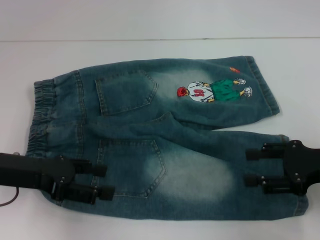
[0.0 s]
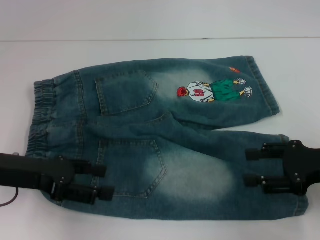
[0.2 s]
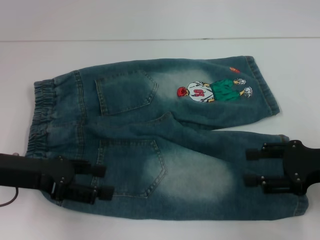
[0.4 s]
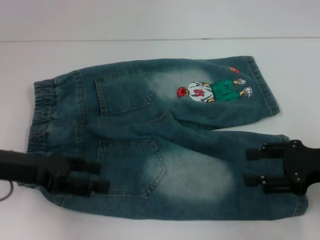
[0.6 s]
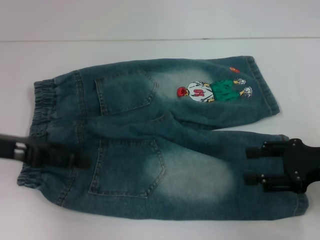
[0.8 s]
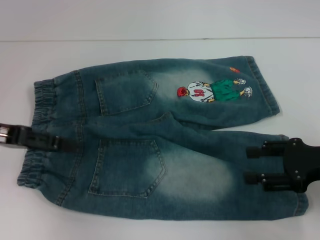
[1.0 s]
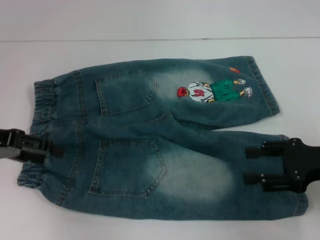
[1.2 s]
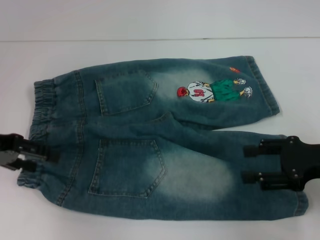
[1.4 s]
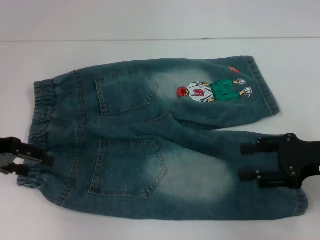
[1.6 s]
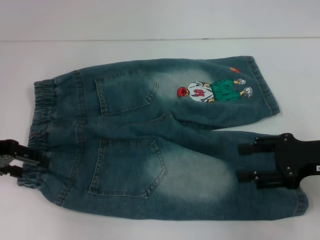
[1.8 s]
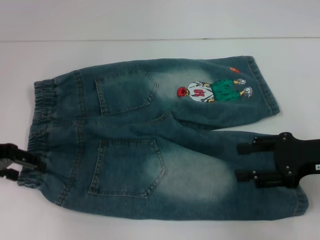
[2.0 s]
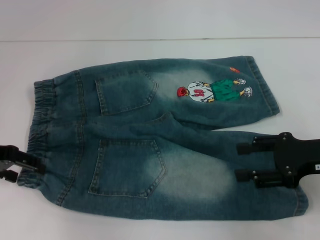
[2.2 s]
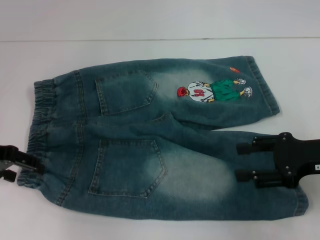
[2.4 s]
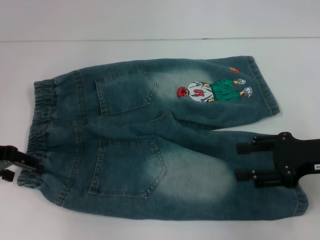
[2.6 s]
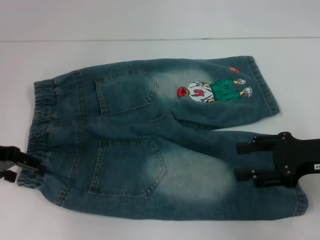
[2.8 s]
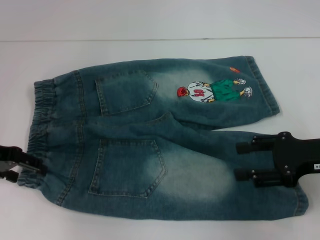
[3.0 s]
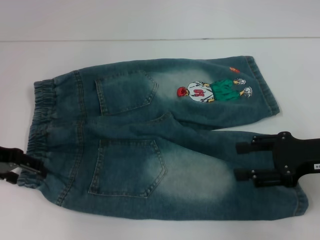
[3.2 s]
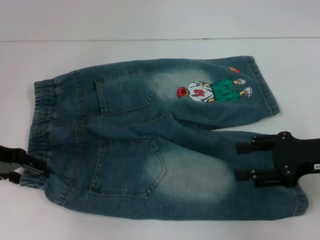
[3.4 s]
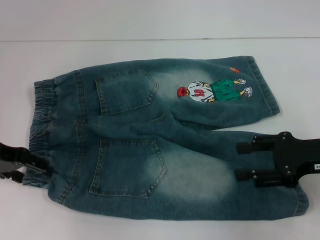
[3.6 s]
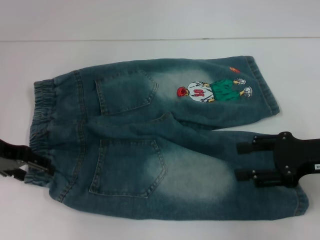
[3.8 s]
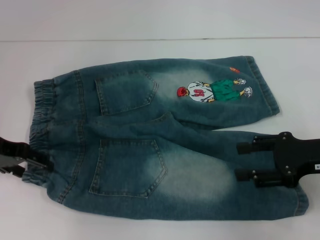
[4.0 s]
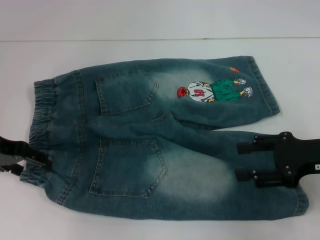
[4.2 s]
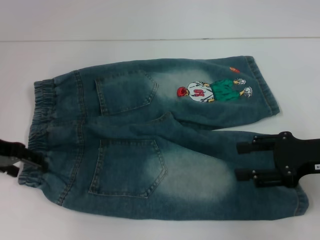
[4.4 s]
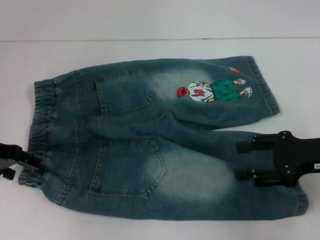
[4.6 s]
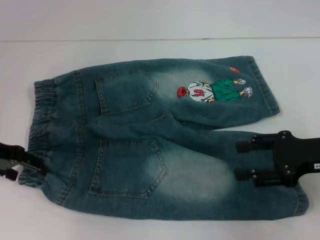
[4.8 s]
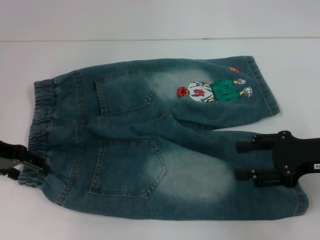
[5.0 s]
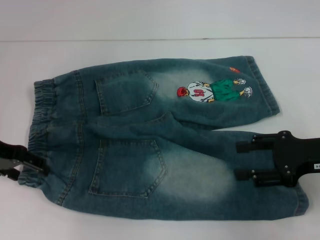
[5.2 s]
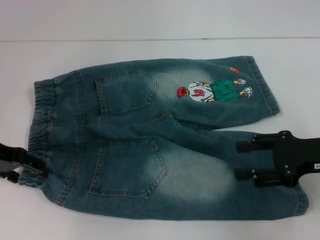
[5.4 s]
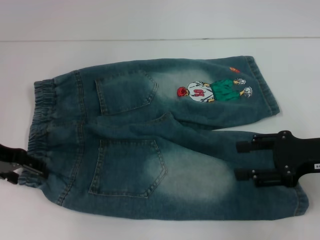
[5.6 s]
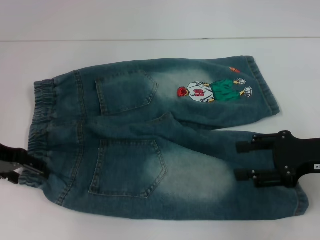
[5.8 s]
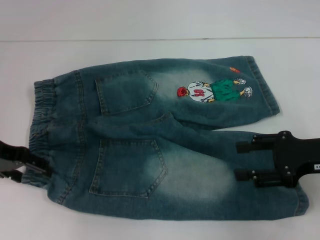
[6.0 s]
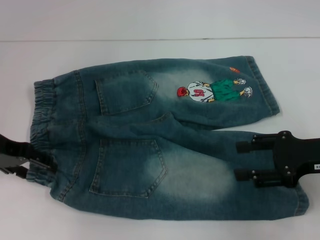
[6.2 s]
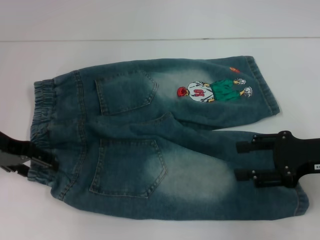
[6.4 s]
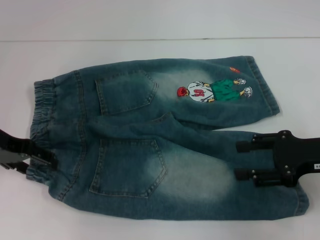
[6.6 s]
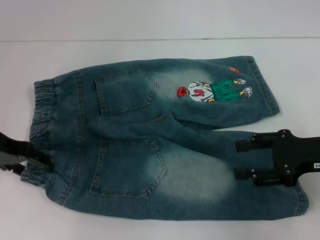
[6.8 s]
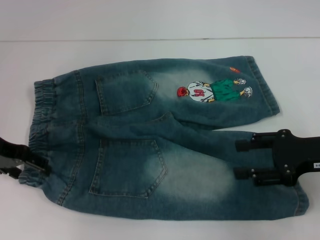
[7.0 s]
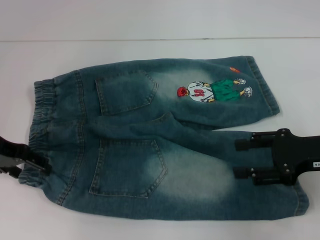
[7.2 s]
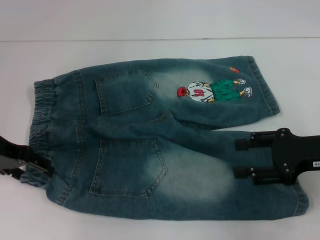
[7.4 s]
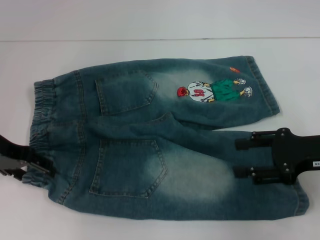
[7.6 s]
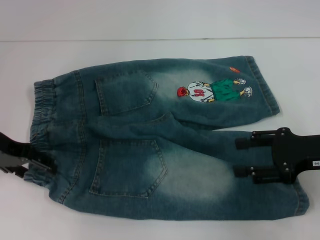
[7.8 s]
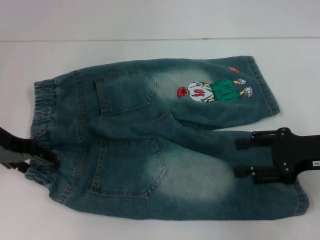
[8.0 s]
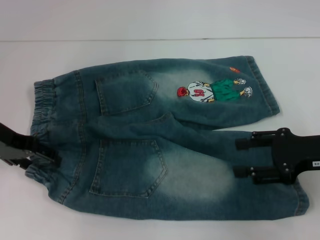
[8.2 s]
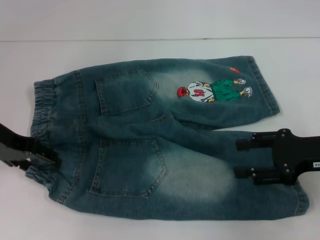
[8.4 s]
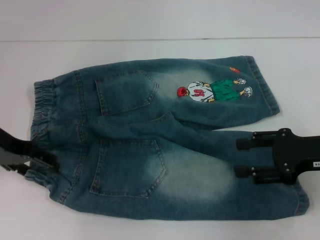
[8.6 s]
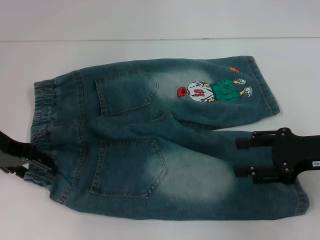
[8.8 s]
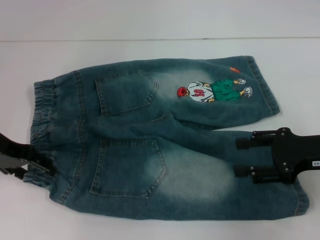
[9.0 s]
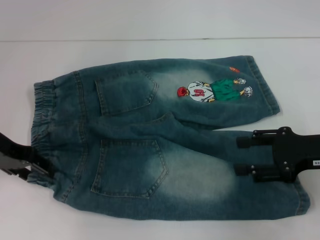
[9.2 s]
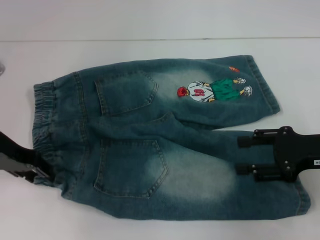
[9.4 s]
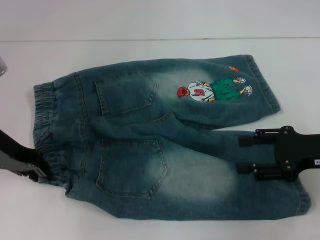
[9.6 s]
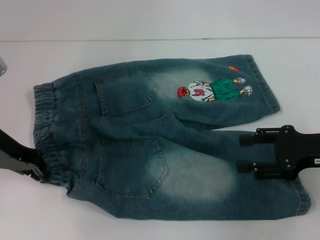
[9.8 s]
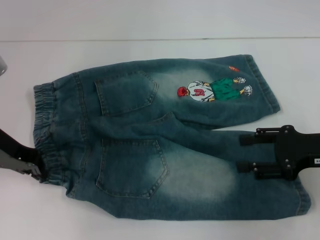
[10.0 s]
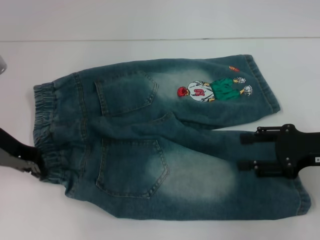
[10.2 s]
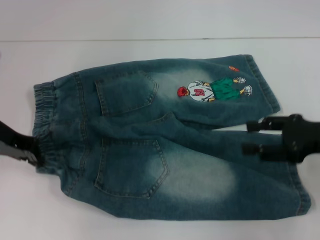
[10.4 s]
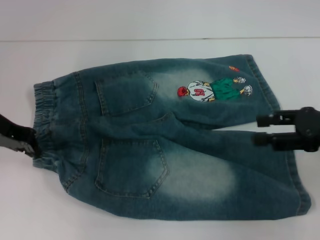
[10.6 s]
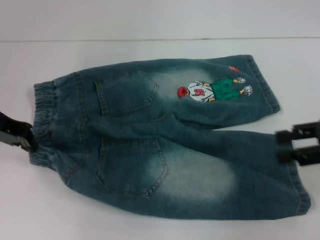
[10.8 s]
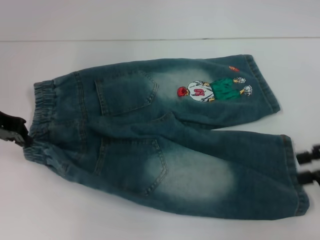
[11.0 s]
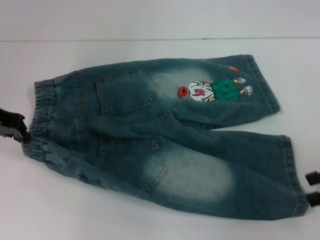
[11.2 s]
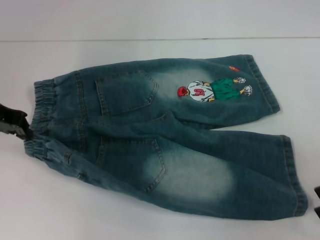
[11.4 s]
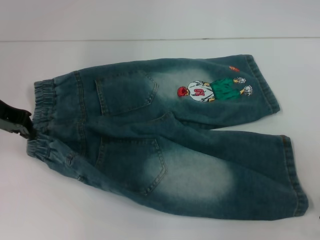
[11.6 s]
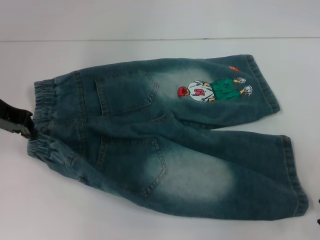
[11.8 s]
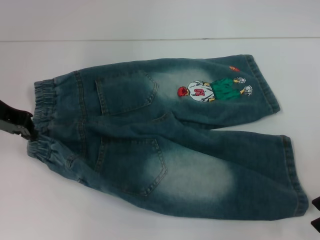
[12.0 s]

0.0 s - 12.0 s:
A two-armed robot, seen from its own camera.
Step, 0.0 s - 10.2 s: Hold the lower left waistband with your left hand.
0.0 s - 1.6 s: The left gripper goes some 5 cm to the left.
1.6 s - 4.4 s: The grippers move only a little.
4.4 s - 6.0 s: Both grippers stay about where they are.
6.0 s - 7.6 s: Both grippers stay put.
7.6 s - 9.0 s: Both grippers stay put.
9.0 s - 10.4 s: The left gripper closes.

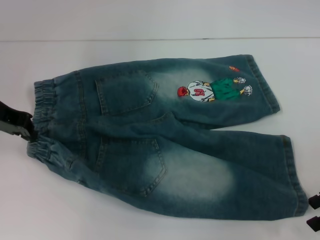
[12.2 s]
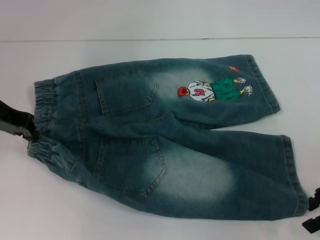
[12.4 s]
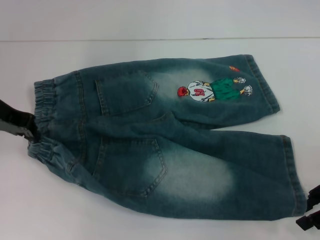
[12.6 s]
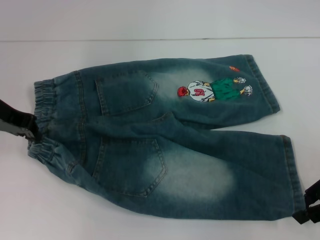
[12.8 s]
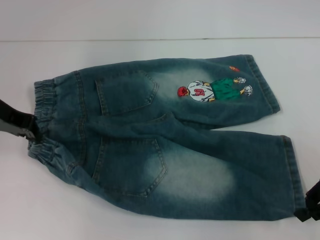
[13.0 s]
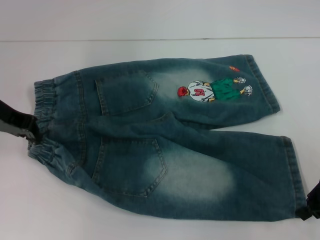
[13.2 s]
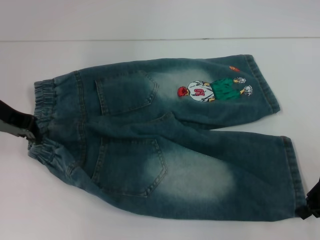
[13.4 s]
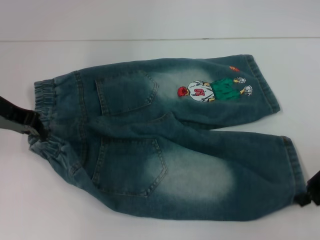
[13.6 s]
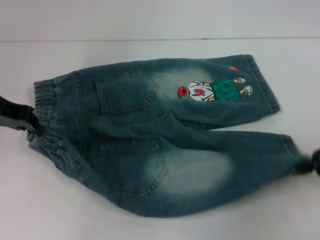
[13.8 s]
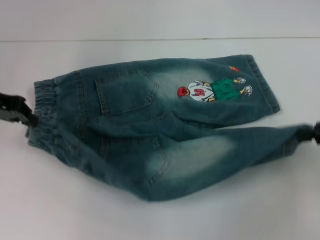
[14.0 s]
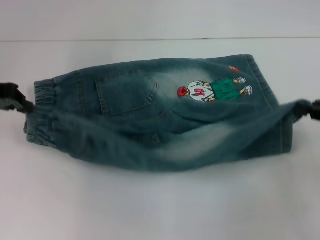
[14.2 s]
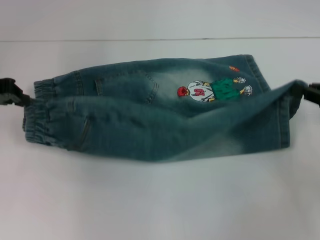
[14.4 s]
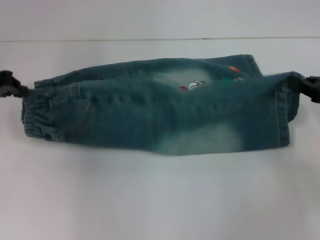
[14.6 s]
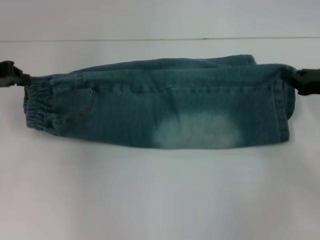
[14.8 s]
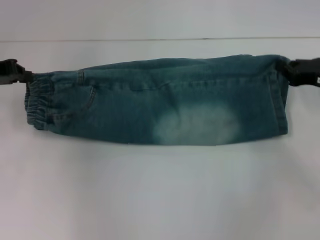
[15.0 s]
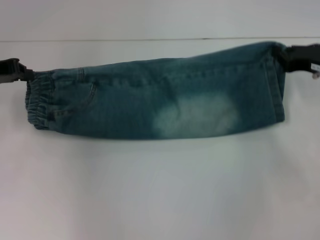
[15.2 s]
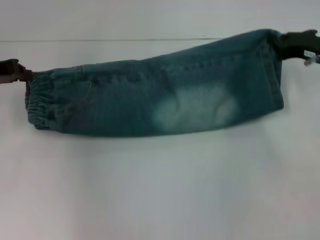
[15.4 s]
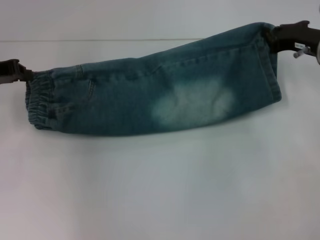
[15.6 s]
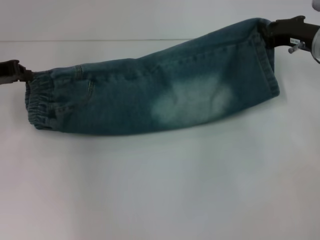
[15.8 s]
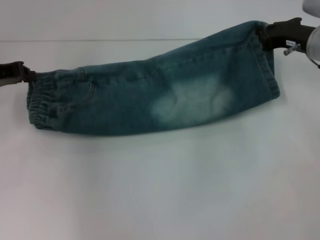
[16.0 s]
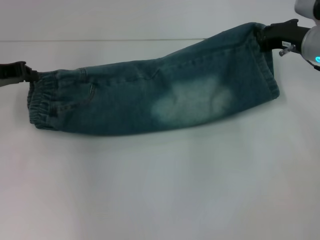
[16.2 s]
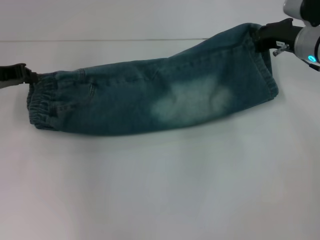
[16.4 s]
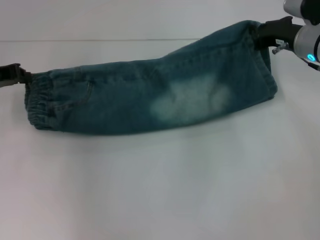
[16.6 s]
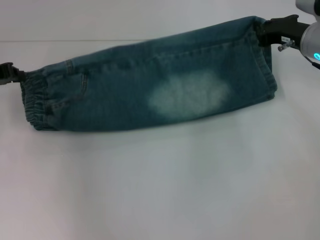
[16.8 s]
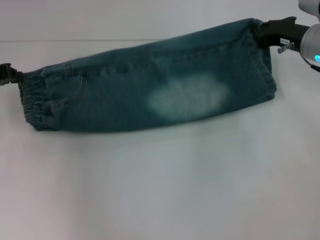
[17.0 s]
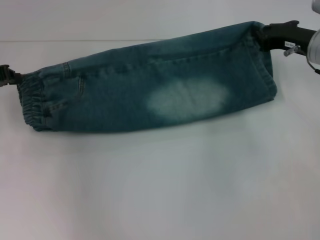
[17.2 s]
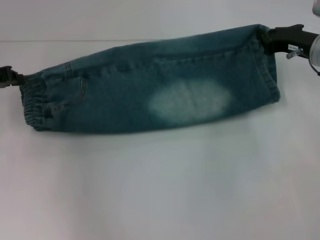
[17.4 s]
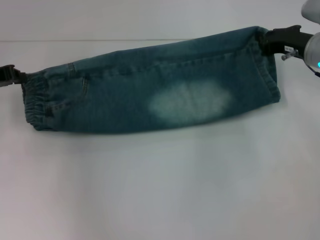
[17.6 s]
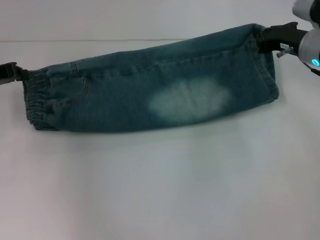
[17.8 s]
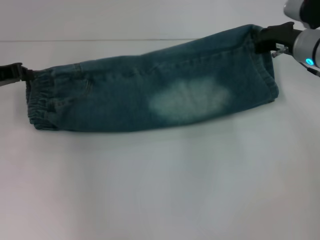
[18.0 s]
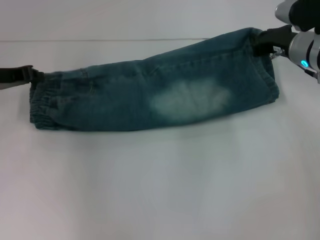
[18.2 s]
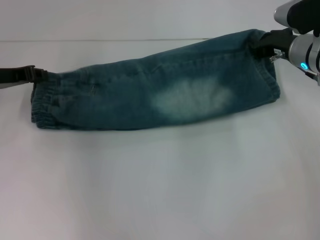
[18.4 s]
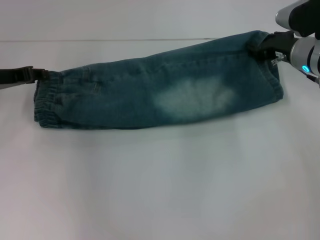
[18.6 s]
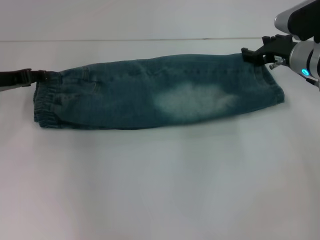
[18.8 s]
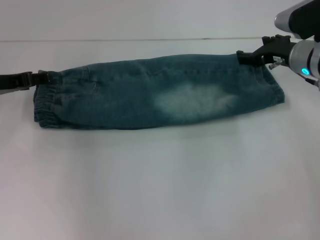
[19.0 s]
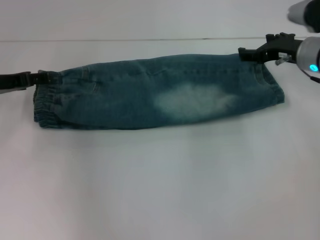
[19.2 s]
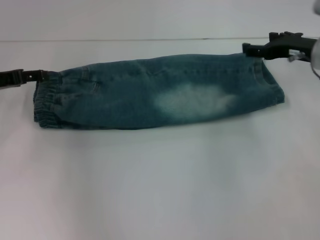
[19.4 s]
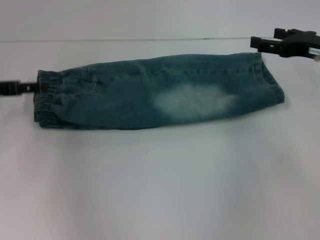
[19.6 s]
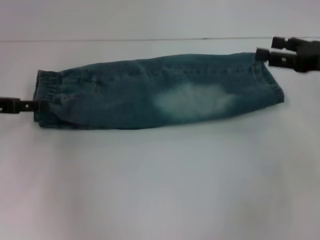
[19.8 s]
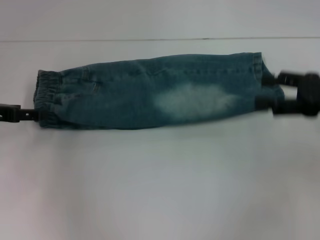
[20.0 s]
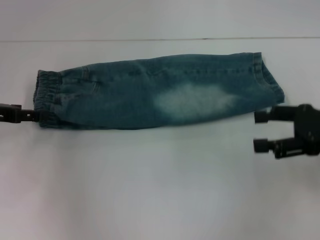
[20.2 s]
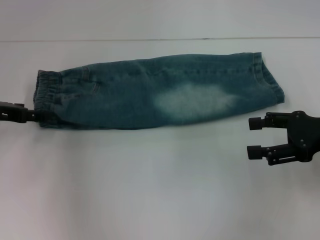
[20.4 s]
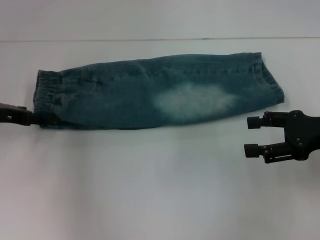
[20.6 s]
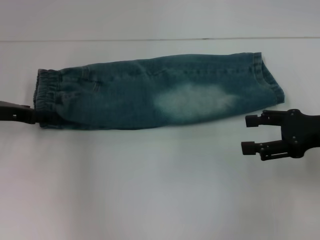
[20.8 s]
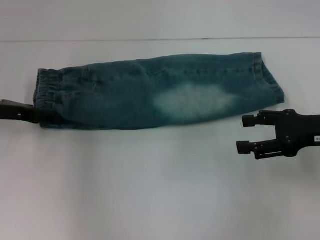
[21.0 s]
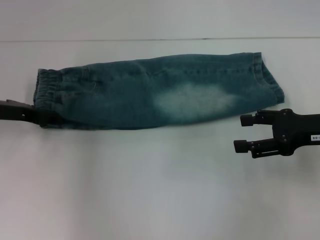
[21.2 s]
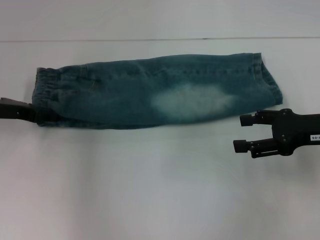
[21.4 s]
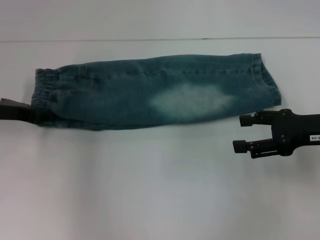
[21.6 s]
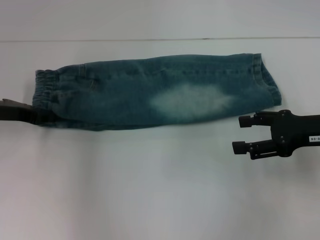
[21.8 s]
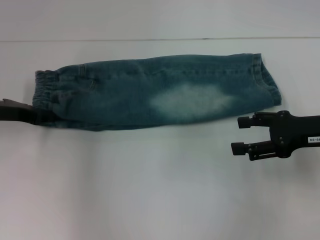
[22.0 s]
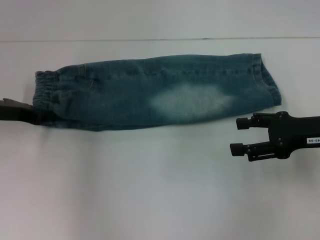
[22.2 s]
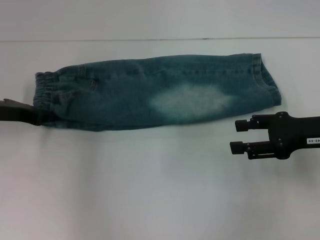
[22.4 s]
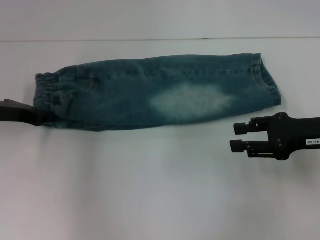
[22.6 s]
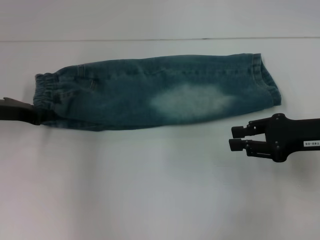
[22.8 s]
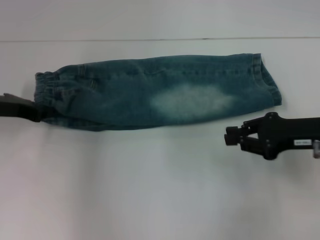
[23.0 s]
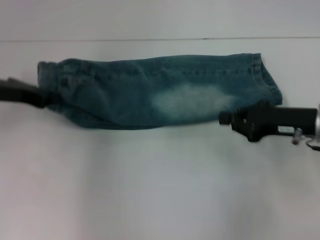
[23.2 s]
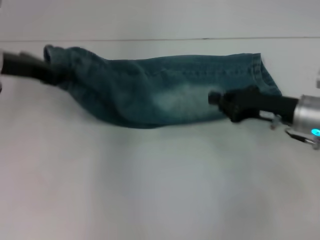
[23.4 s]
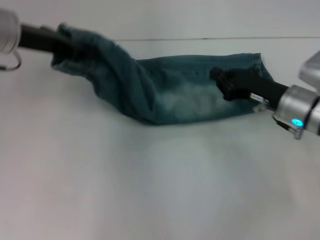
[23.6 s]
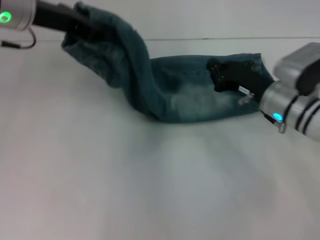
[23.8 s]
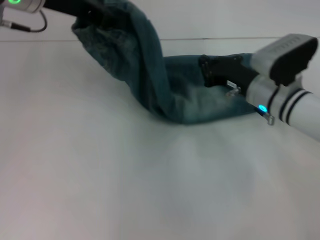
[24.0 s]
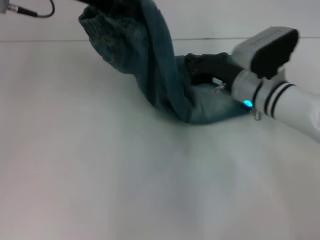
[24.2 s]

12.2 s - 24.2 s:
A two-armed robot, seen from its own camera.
Step, 13.6 s - 19.2 s: Fold upward with your right hand.
Step, 19.4 s - 22.2 s: Hold the waistband with your left hand.
12.2 s - 13.8 s: The right gripper closes.
13.8 s - 15.2 s: The right gripper heads forward, covering roughly 10 cm.
15.2 s - 16.6 s: The right gripper is displaced to the left and forward by about 10 cm.
16.6 s - 18.2 s: The grippers stay close to where they were, moving slightly.
18.2 s - 19.8 s: The left gripper shifts by roughly 5 cm, and opens up. The right gripper moves backward and to the right, roughly 10 cm, and opens its fingers.
19.8 s - 21.2 s: The right gripper ends up approximately 5 cm from where it was. The left gripper changes place by some 5 cm.
21.2 s - 22.6 s: The left gripper closes its fingers.
22.6 s - 24.2 s: The right gripper travels to the left and forward by some 15 cm, and closes up. The left gripper moves upward and to the right, about 20 cm.
